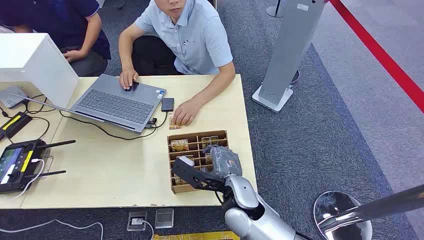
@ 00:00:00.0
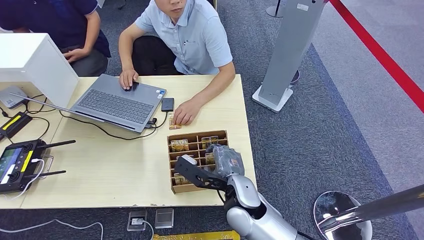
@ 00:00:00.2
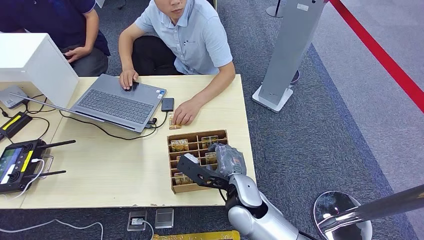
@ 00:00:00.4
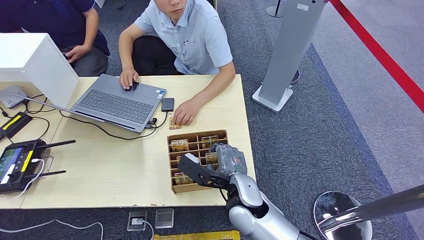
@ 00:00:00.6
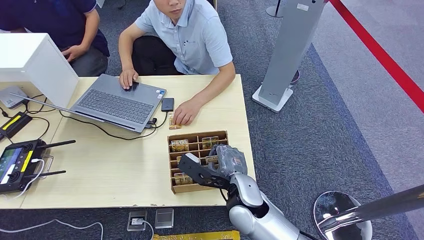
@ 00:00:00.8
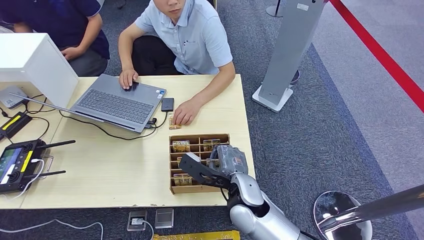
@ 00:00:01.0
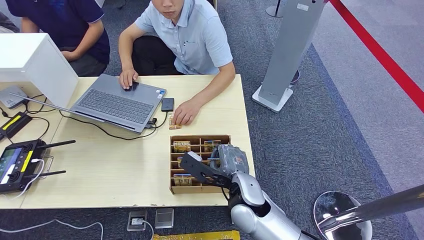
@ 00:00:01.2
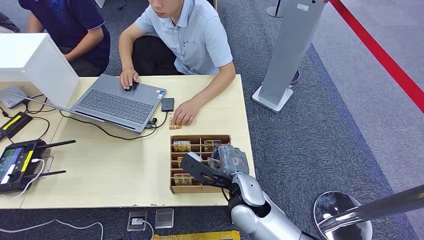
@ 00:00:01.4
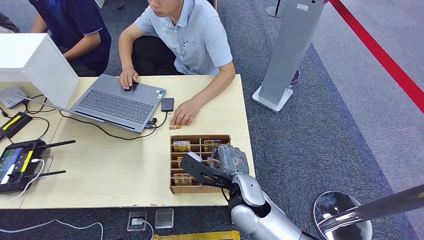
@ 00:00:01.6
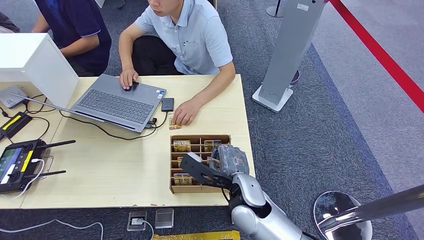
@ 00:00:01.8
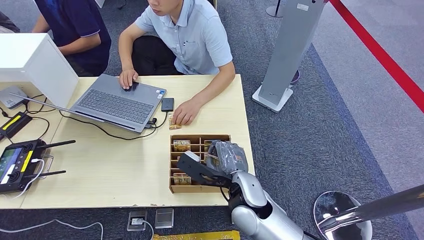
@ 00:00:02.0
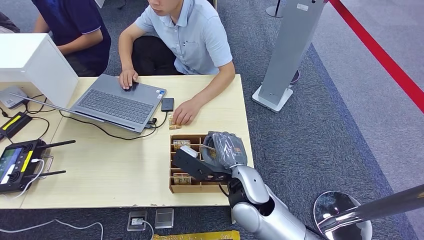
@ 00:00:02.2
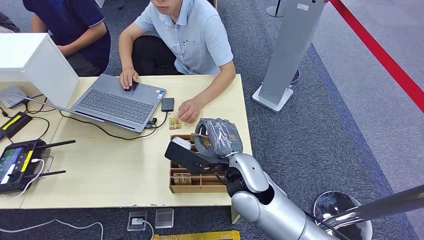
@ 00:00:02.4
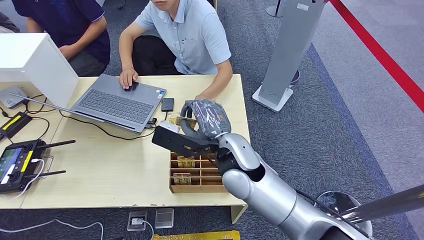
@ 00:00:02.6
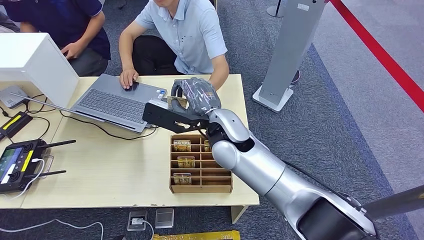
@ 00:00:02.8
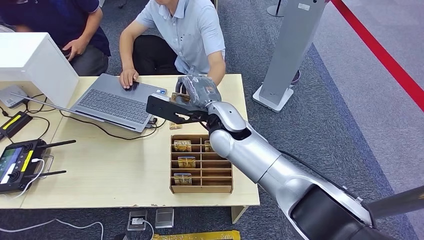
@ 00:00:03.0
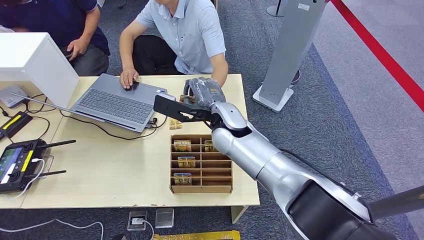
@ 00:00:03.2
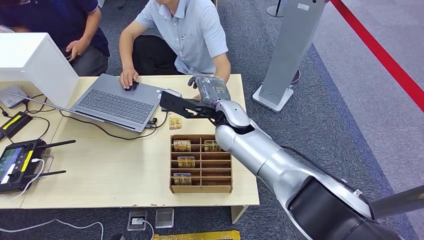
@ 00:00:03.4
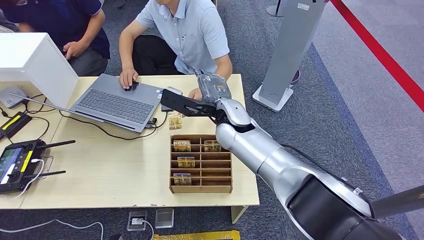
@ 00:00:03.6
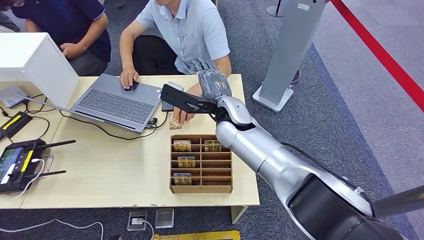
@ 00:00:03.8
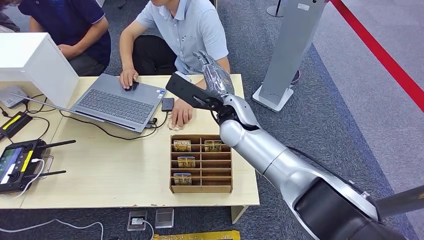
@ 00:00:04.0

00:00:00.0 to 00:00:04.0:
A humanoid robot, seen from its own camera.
Step, 00:00:00.0 to 00:00:02.4: Pick up the key card from the card box.
Step, 00:00:02.6 to 00:00:04.0: Hand the key card to the target.
00:00:01.4 to 00:00:02.6: The right hand goes about 10 cm upward.
00:00:02.6 to 00:00:04.0: The right hand travels forward by roughly 10 cm.

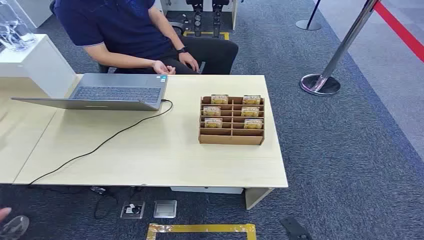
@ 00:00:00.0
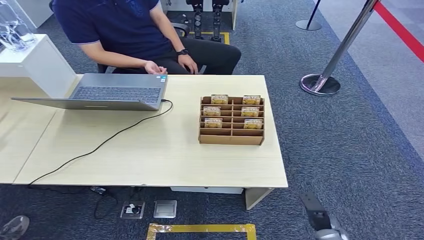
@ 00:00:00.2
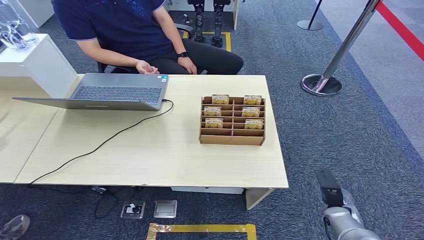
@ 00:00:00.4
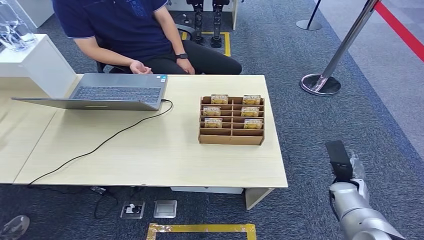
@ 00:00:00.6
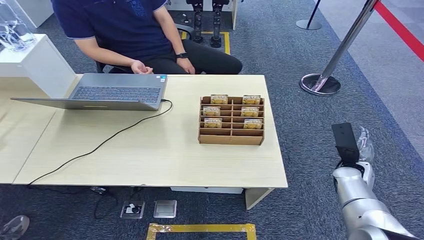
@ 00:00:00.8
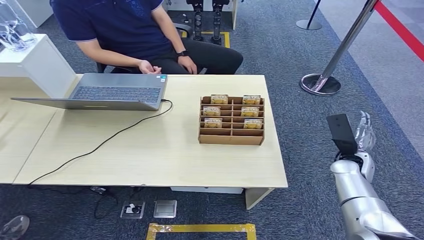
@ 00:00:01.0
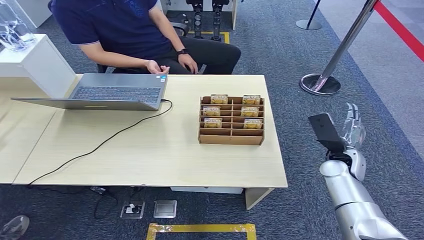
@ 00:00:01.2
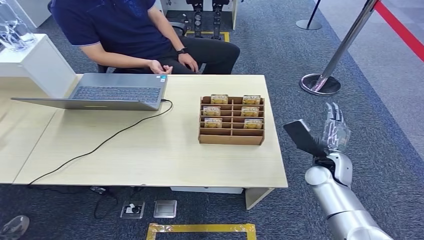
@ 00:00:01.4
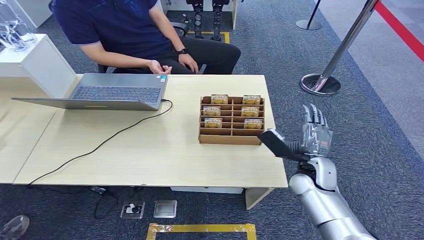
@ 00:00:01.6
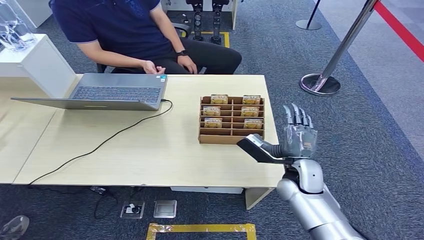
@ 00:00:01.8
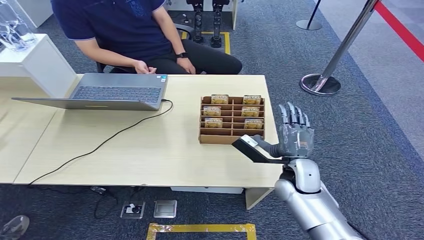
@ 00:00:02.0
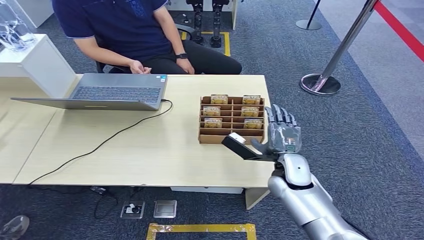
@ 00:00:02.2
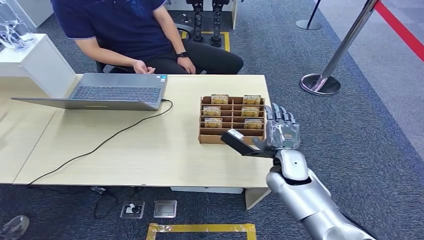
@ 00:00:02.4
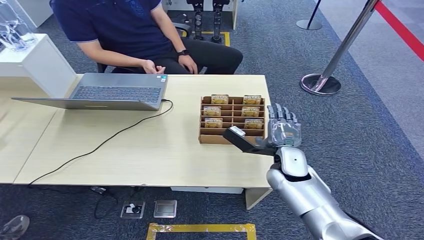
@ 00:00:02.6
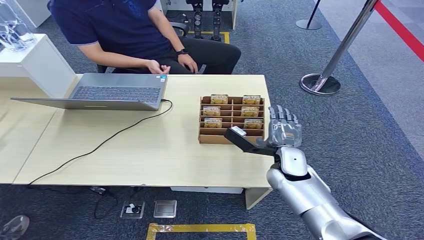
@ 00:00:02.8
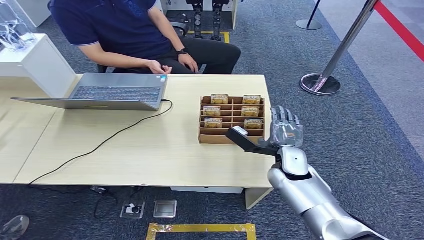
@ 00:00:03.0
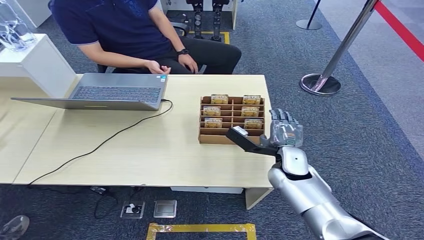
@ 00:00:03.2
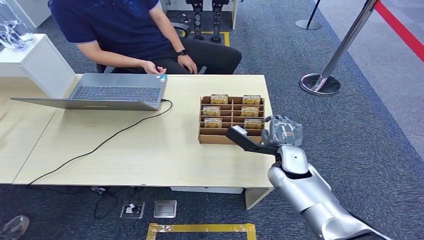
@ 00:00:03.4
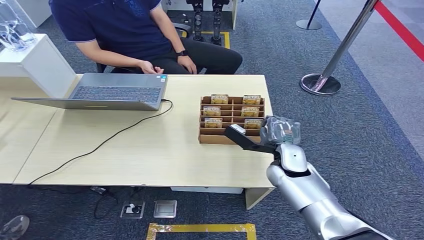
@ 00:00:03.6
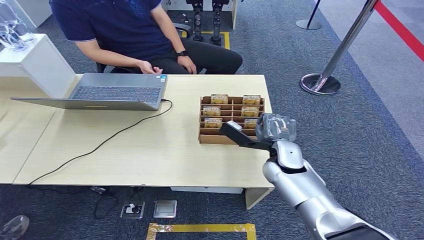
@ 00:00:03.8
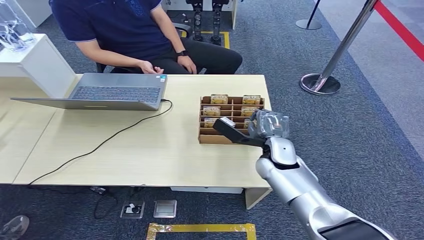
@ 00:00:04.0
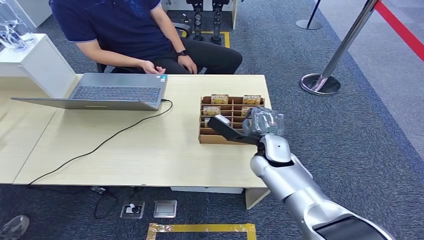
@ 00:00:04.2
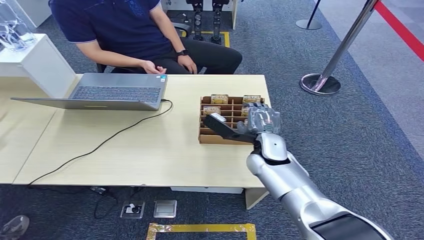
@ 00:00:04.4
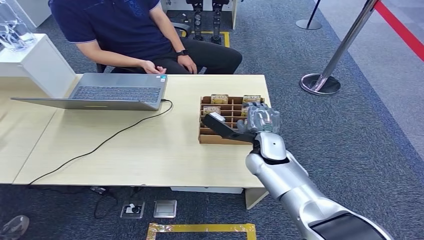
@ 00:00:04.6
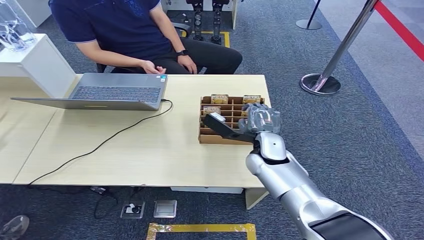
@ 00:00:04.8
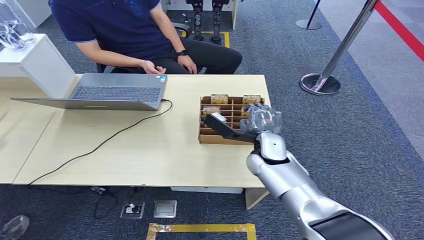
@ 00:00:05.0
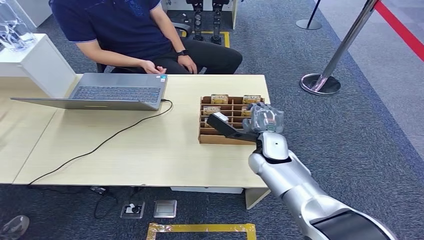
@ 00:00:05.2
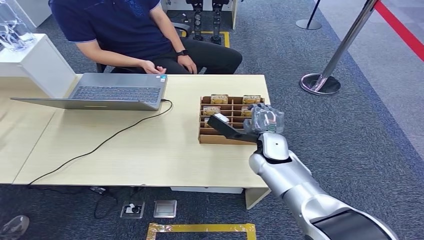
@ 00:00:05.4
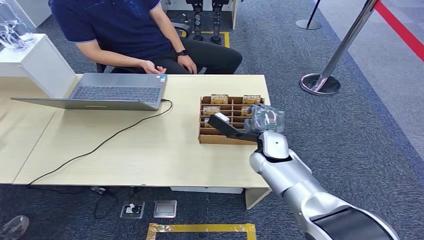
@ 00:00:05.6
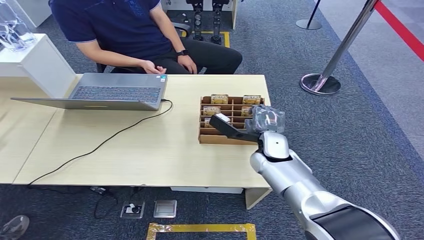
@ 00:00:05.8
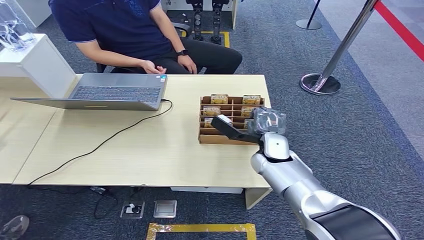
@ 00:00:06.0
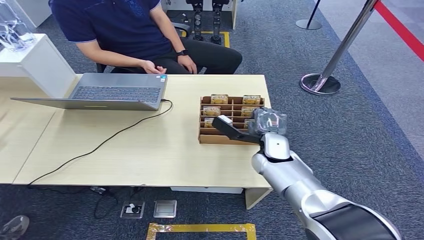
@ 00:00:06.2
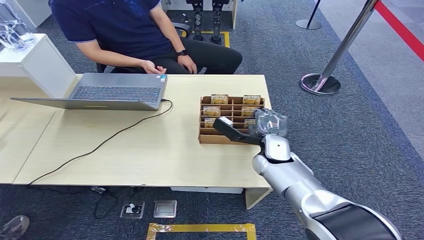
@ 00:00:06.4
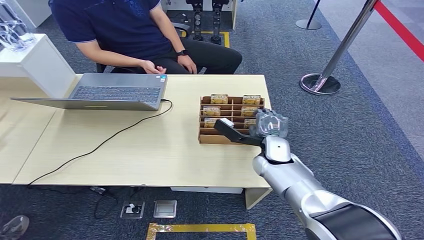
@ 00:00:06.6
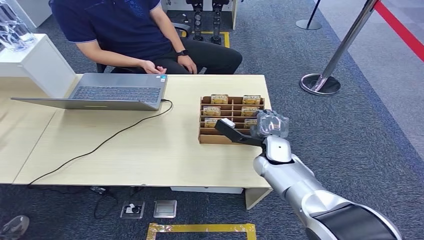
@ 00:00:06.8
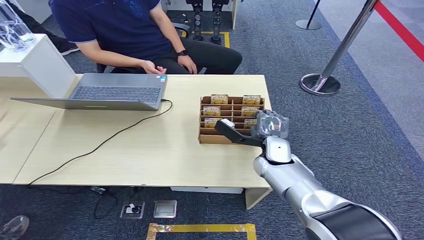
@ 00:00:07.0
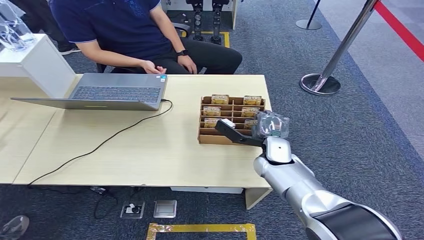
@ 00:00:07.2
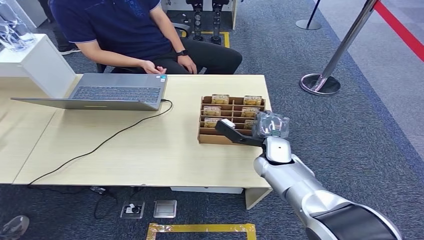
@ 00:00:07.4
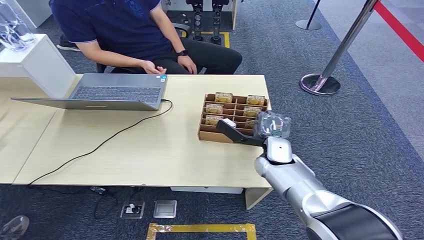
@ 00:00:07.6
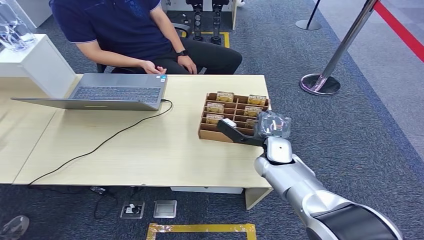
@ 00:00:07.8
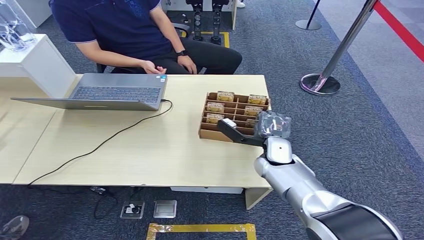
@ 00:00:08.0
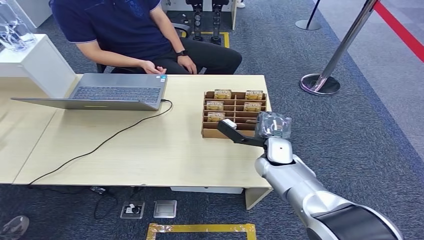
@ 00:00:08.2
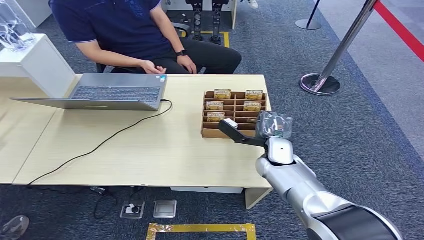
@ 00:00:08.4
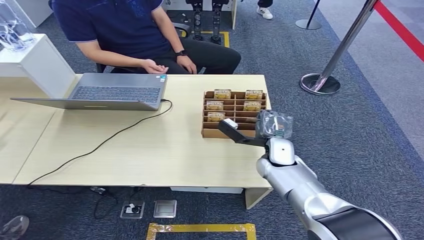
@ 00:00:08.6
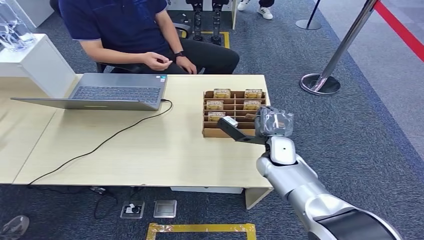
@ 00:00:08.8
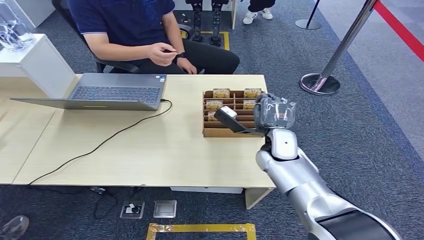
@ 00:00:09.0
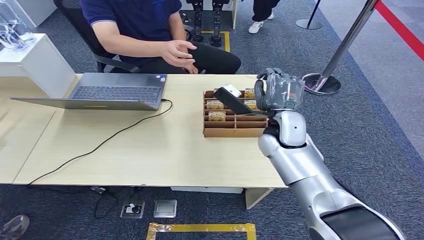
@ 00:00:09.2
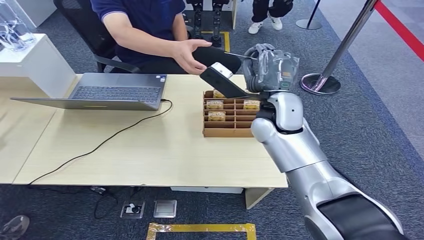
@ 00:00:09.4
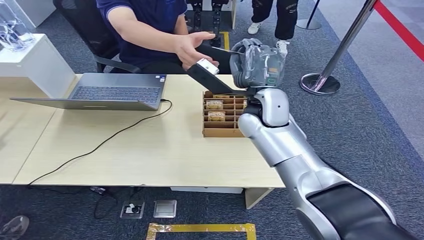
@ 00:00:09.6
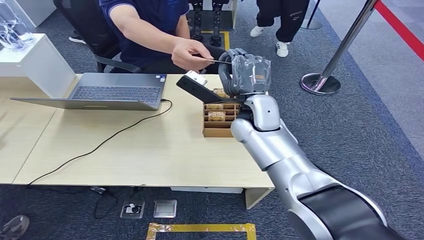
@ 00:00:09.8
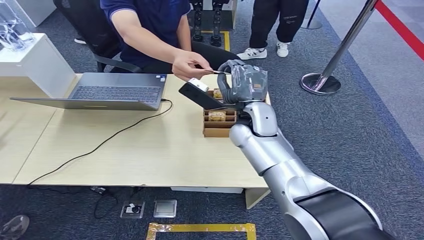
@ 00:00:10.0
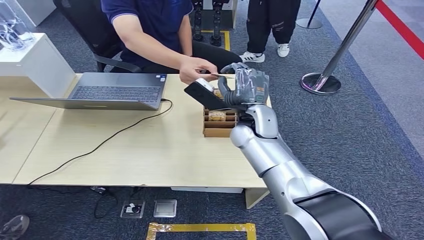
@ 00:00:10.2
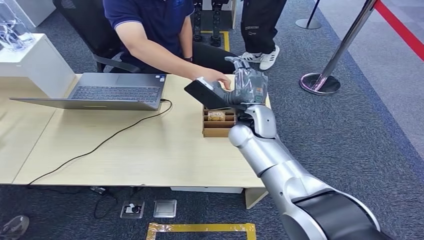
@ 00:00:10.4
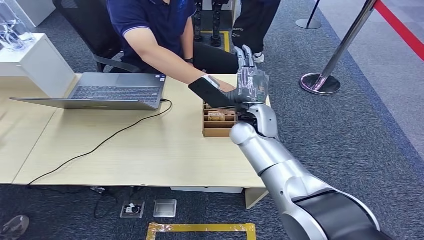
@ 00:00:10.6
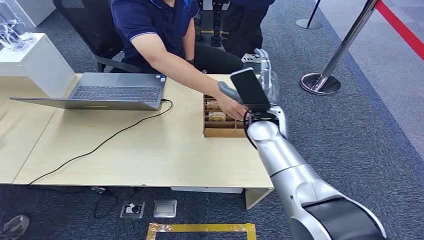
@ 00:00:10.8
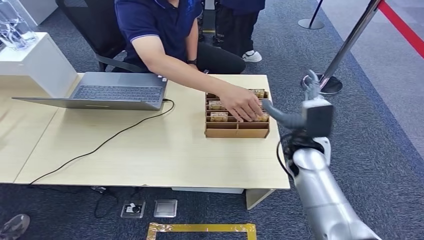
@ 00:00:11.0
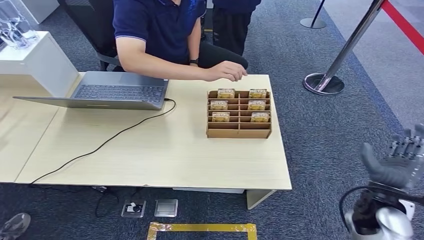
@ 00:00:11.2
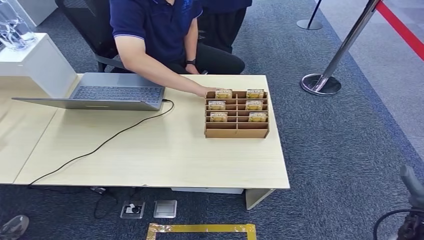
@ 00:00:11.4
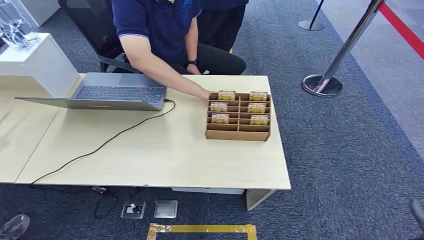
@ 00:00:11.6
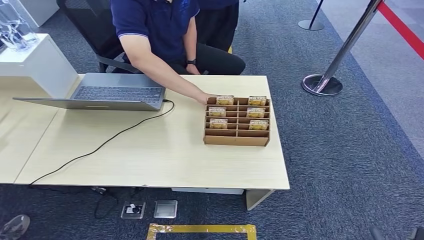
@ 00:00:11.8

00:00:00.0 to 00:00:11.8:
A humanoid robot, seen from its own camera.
Step, 00:00:00.0 to 00:00:08.8: Pick up the key card from the card box.
Step, 00:00:09.2 to 00:00:11.8: Hand the key card to the target.
00:00:01.4 to 00:00:03.0: The right hand travels to the left by roughly 5 cm.
00:00:03.0 to 00:00:04.4: The right hand heads to the left, covering about 5 cm.
00:00:04.4 to 00:00:08.8: The hands move only a little.
00:00:08.8 to 00:00:10.4: The right hand travels upward and to the left by about 15 cm.
